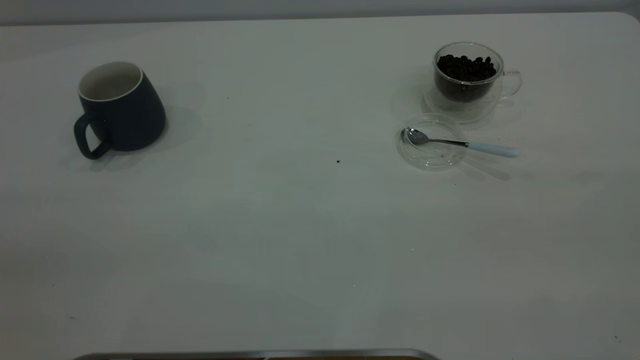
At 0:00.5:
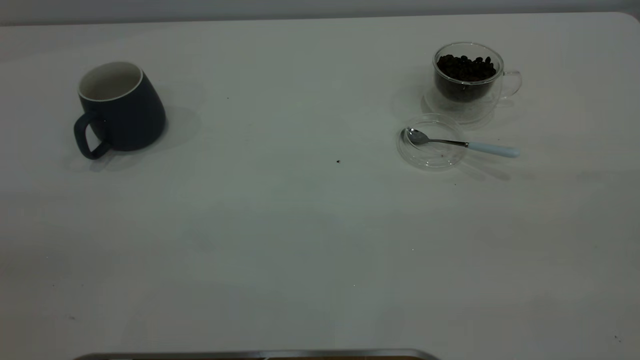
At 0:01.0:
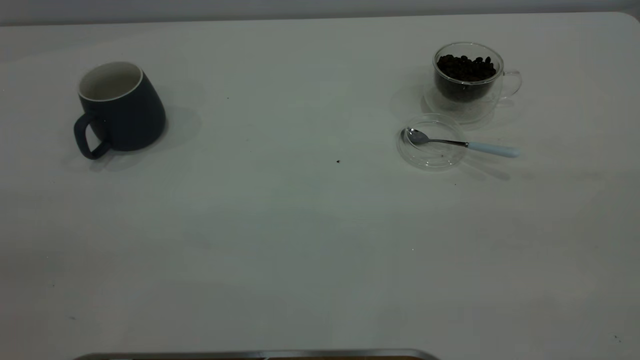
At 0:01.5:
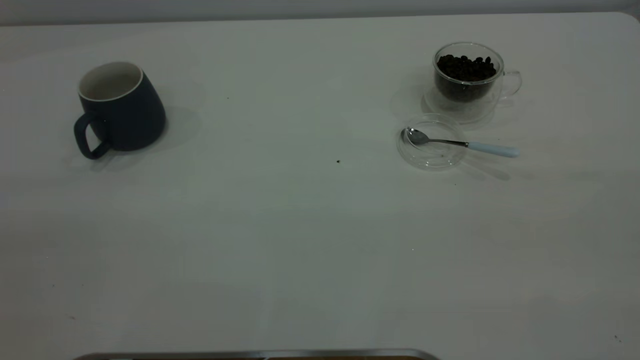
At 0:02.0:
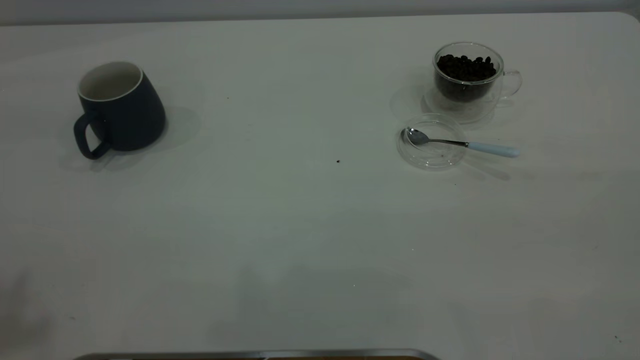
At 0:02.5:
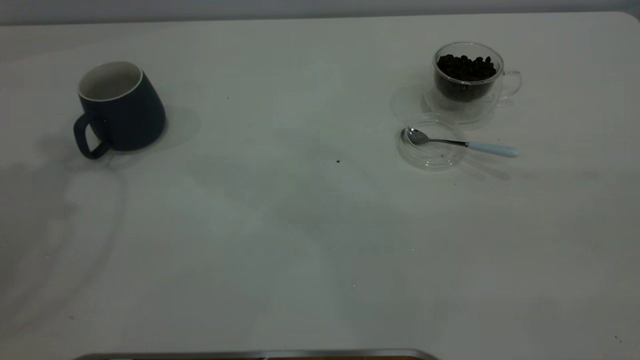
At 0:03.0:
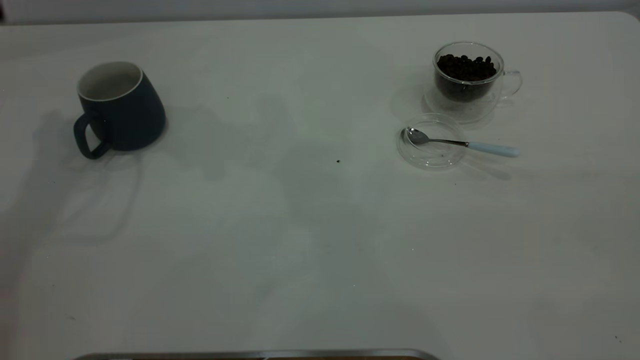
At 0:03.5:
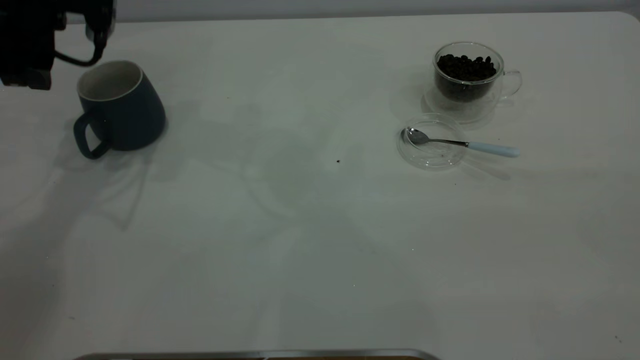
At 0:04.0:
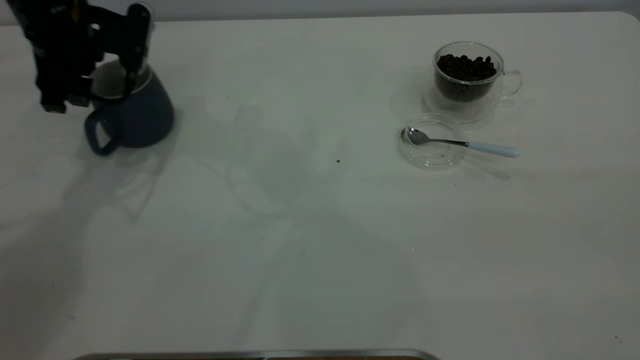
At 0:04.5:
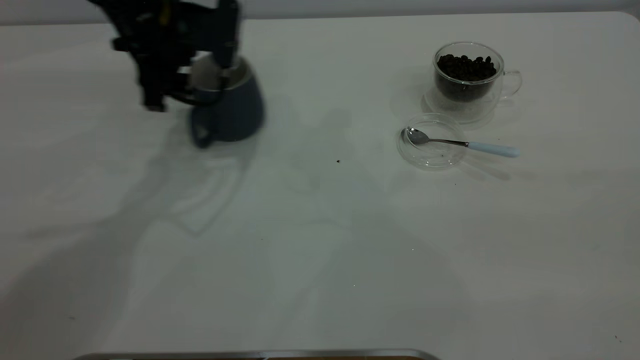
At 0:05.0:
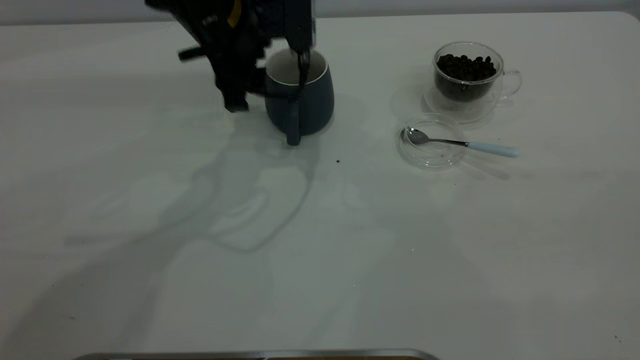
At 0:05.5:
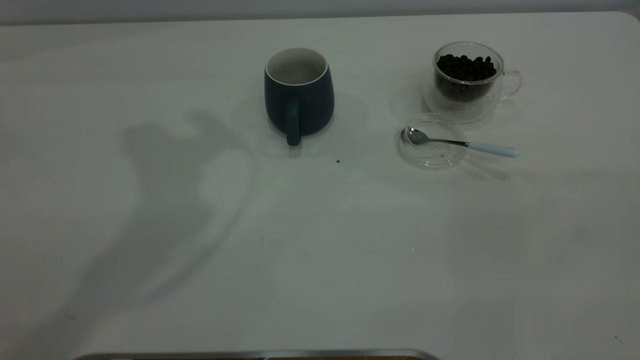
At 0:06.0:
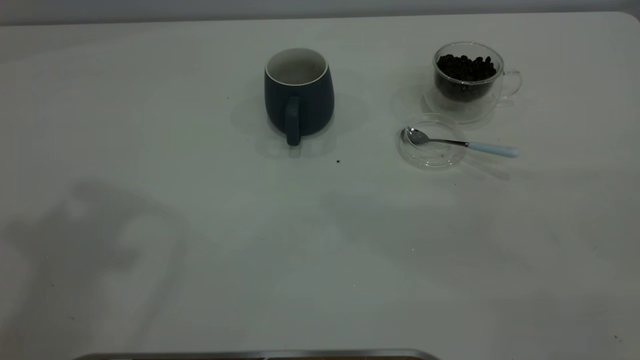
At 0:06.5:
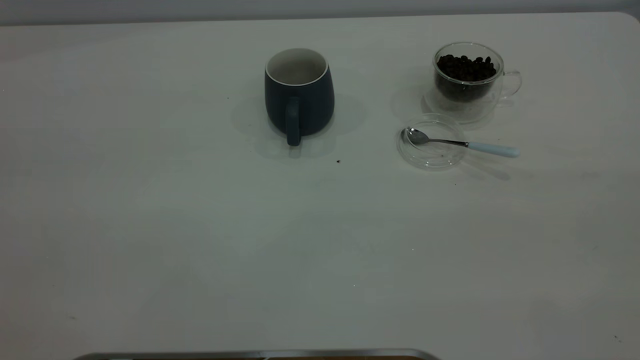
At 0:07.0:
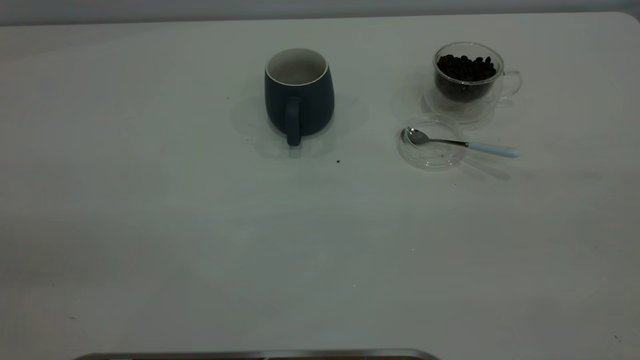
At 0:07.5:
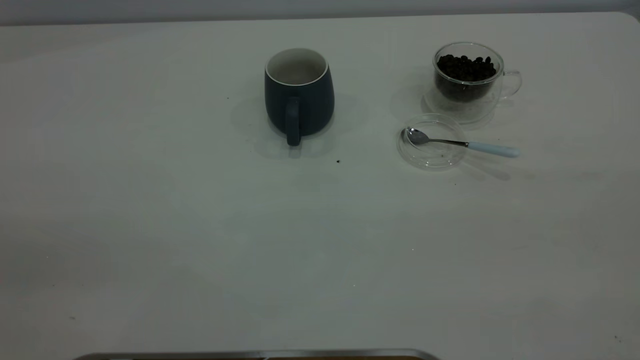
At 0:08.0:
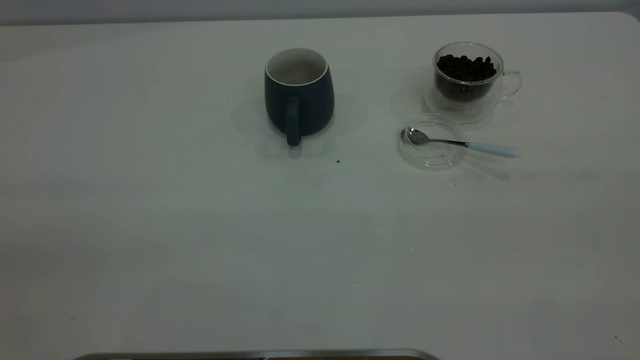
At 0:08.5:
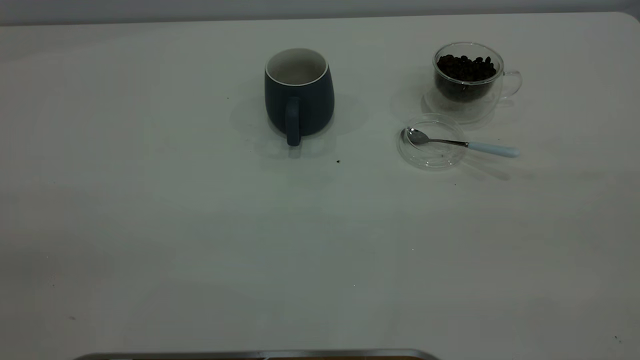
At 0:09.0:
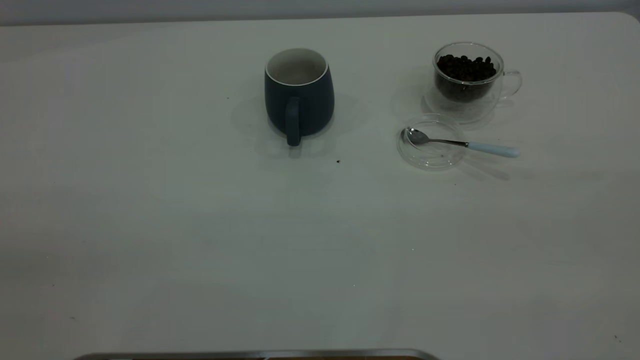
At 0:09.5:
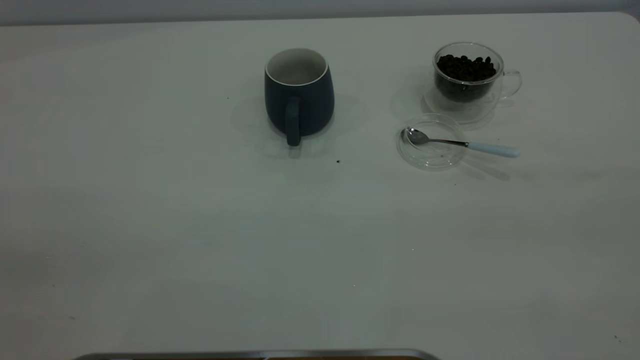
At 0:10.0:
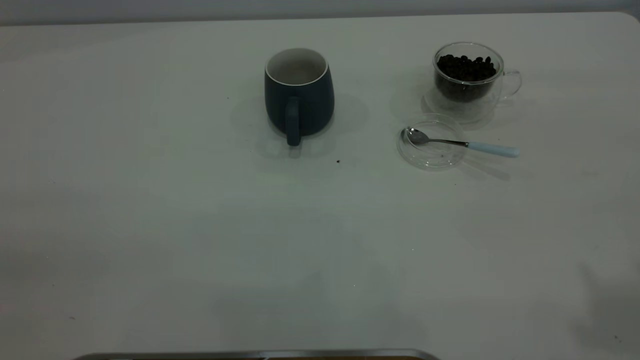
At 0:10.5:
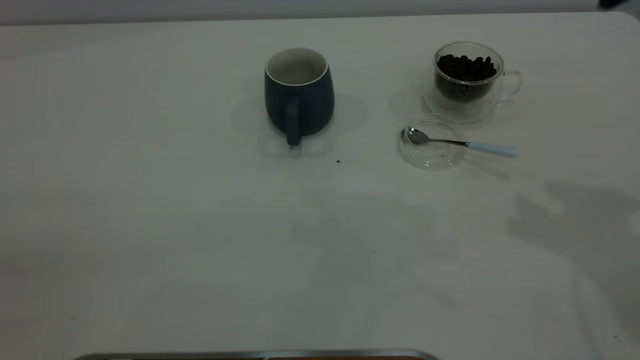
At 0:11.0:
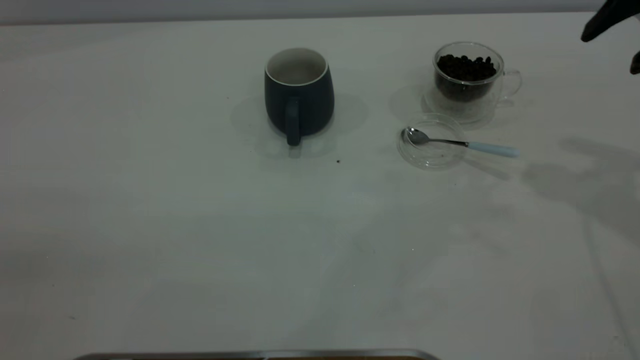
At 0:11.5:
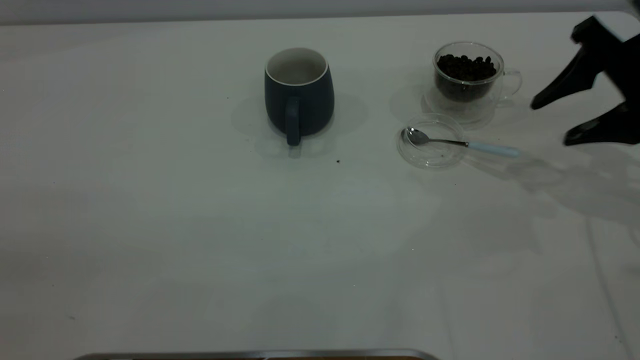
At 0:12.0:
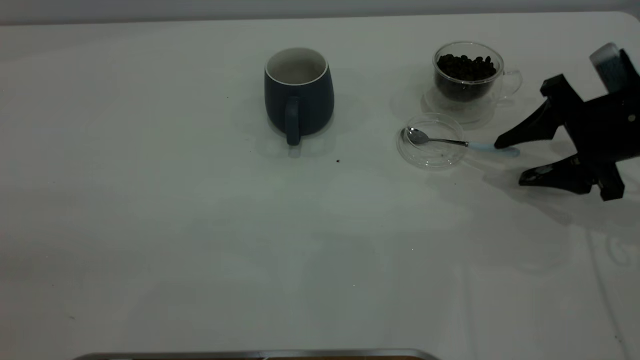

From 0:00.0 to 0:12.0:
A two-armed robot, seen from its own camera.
Task of the whole recording: the left gripper place the grey cup in the center of the table, the right gripper take the blue spoon from the cup lid and scoop out the coffee beans from the coffee cup and put them into the grey cup, the right gripper put the spoon back into the cup lid.
Step, from 0:00.0 to 0:05.0: Move the cup to the center of view.
From 0:02.0 to 0:04.0: The left gripper travels downward and forward by about 40 cm.
From 0:04.0 to 0:06.0: The left gripper goes some 40 cm upward and backward.
From 0:10.0 to 0:12.0: The right gripper heads downward and forward, covering some 35 cm.

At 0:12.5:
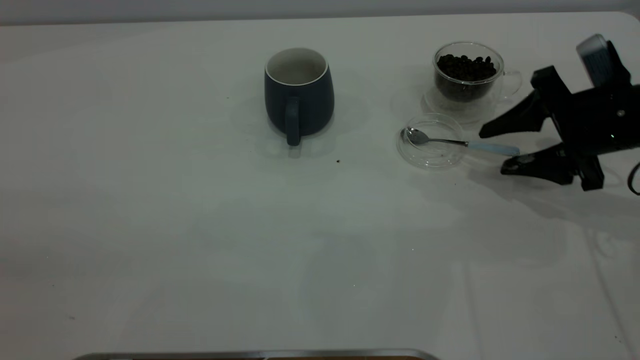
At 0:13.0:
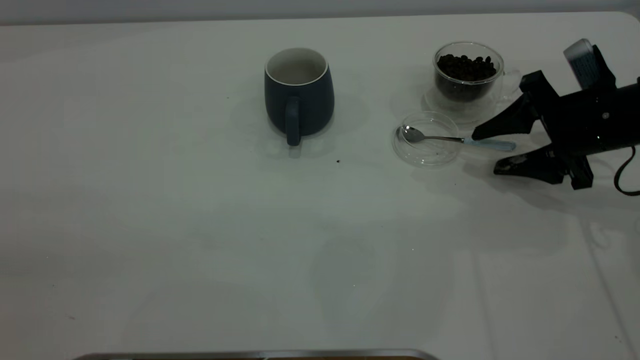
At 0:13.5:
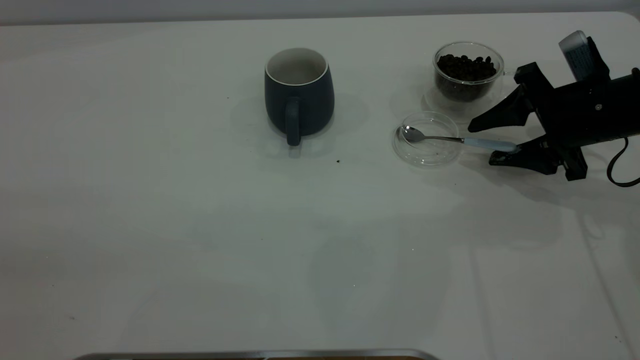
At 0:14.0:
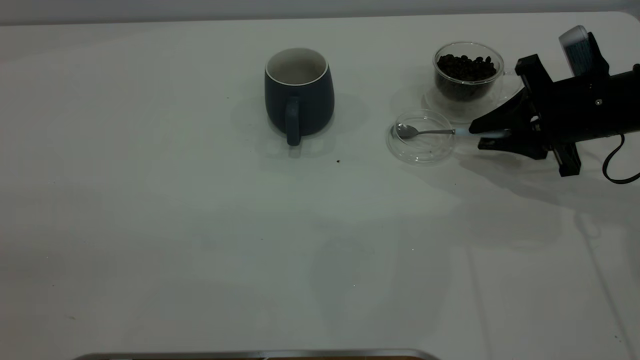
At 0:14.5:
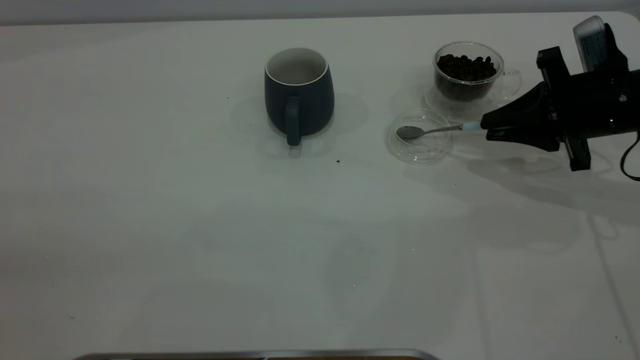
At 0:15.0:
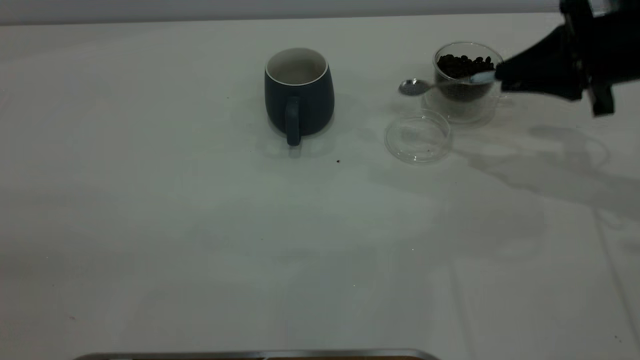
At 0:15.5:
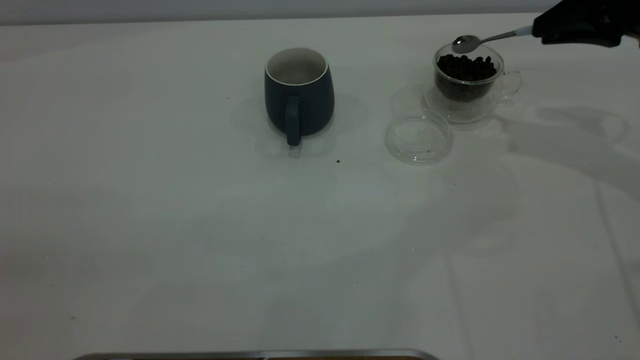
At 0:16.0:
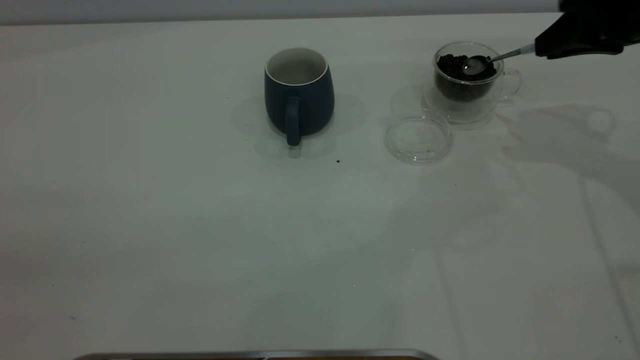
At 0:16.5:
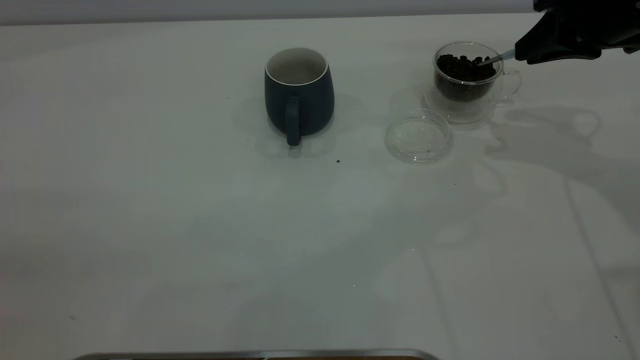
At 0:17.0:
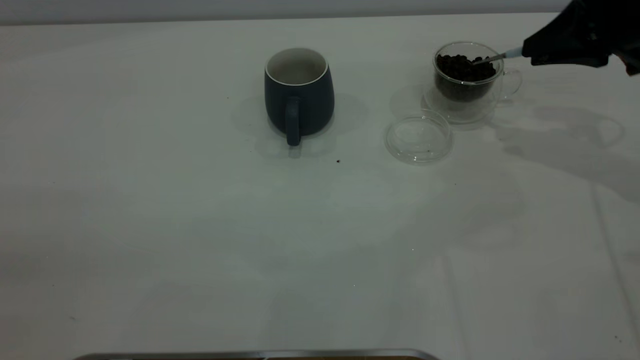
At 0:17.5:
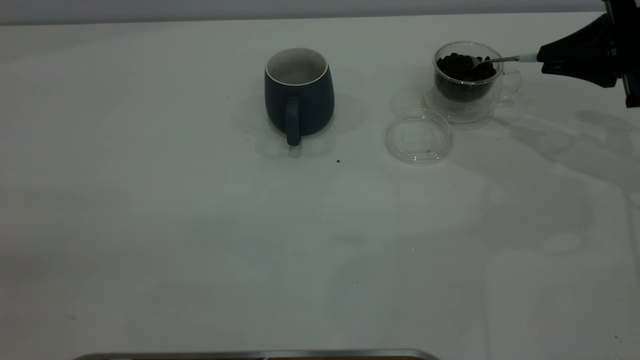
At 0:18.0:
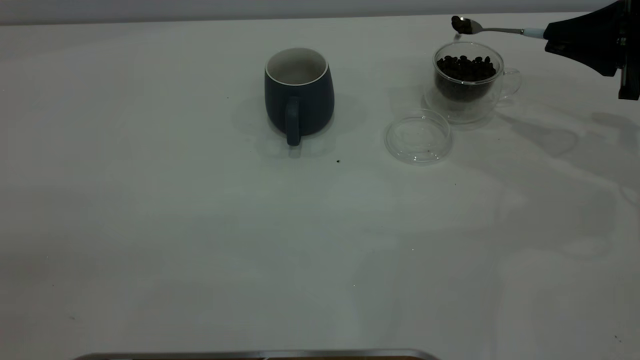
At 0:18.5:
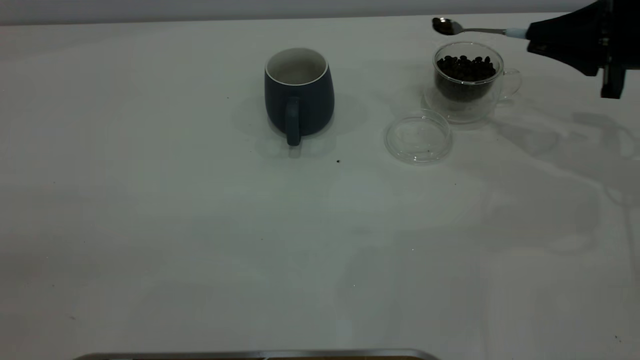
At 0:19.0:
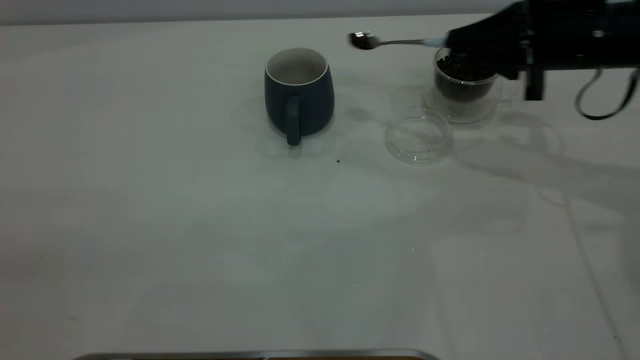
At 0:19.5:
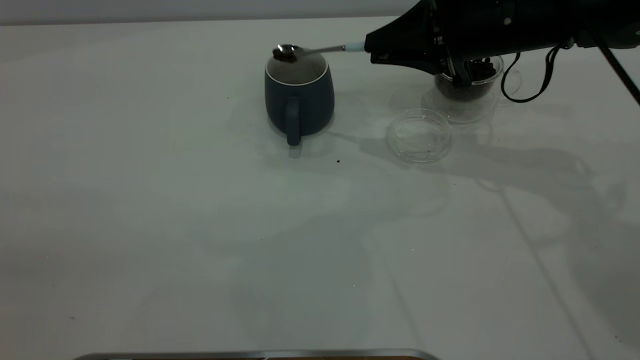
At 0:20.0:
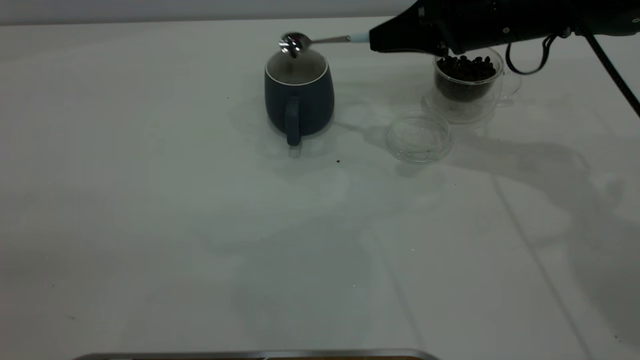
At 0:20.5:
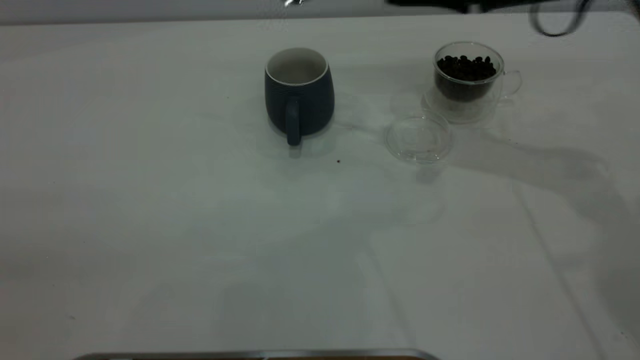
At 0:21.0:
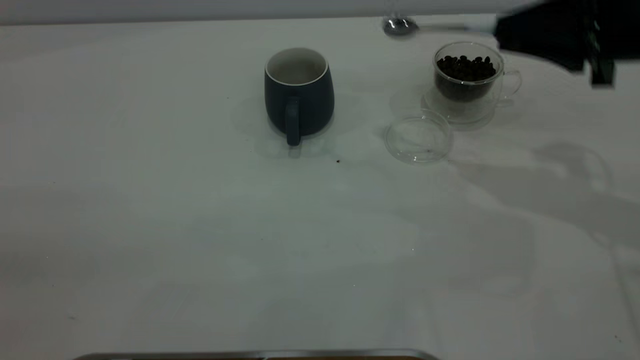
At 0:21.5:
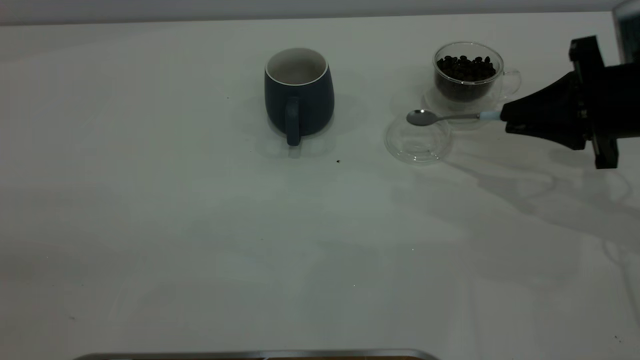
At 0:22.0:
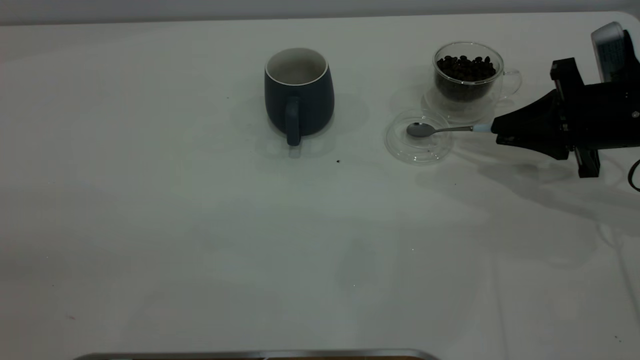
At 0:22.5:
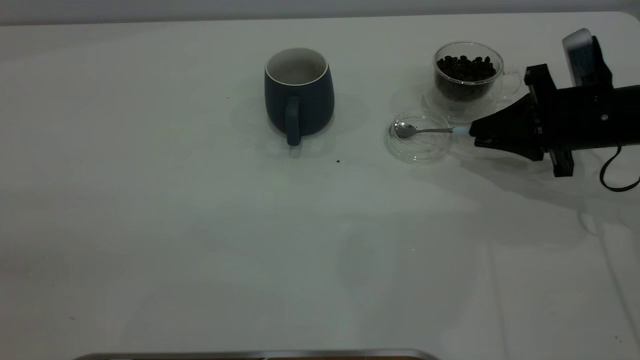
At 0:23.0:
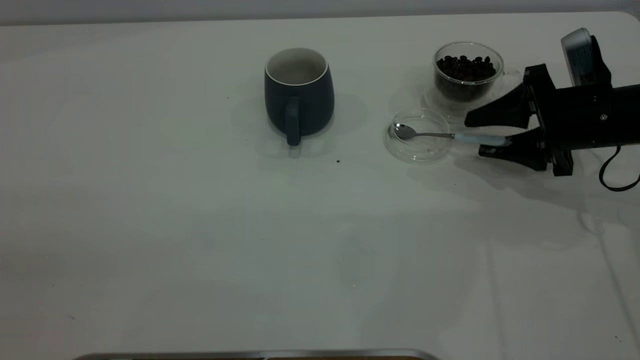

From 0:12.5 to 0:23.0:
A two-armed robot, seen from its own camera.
Task of the whole recording: the left gripper place the grey cup in the center of the table, the right gripper take the blue spoon from the cup lid and scoop out the coffee beans from the coffee cup and put them into the grey cup, the right gripper put the spoon back into the cup lid.
Step, from 0:12.5 to 0:14.5: Pick up the spoon.
Step, from 0:15.0 to 0:20.0: Scoop a spoonful of beans into the cup.
From 0:12.5 to 0:14.5: The right gripper closes.
From 0:14.5 to 0:16.5: The right gripper shifts roughly 10 cm upward.
From 0:16.5 to 0:19.0: The right gripper changes place by roughly 5 cm.
From 0:19.0 to 0:21.0: The right gripper moves backward, roughly 5 cm.
From 0:21.0 to 0:23.0: The right gripper moves downward, some 10 cm, and opens its fingers.
